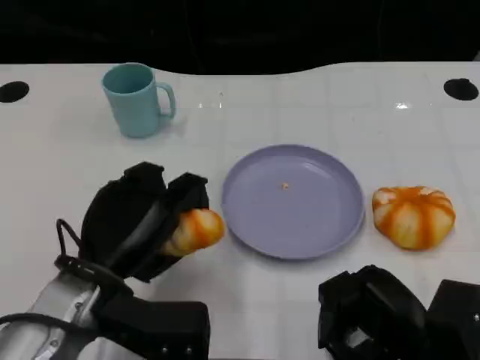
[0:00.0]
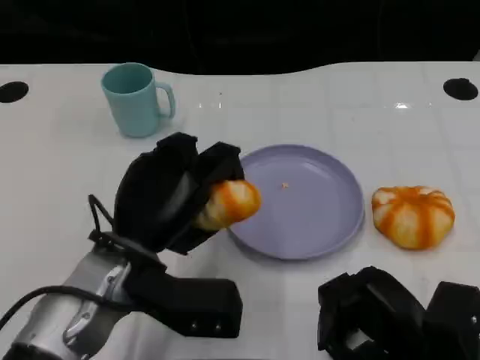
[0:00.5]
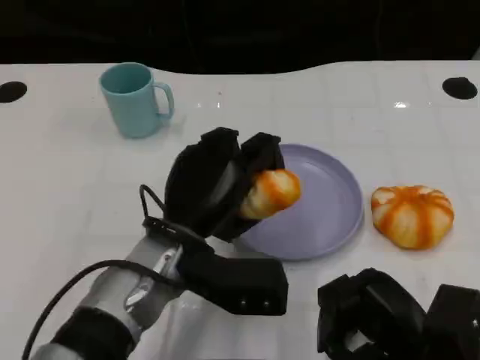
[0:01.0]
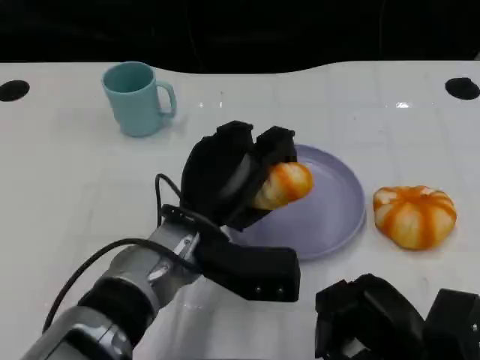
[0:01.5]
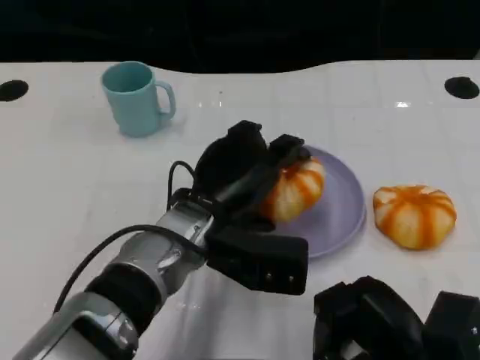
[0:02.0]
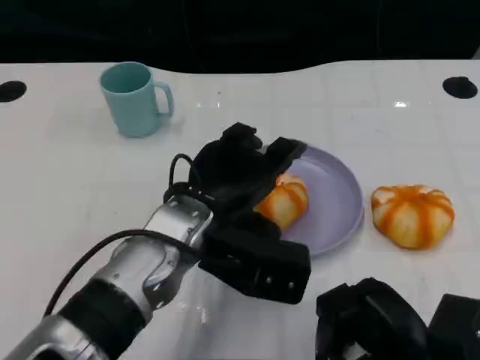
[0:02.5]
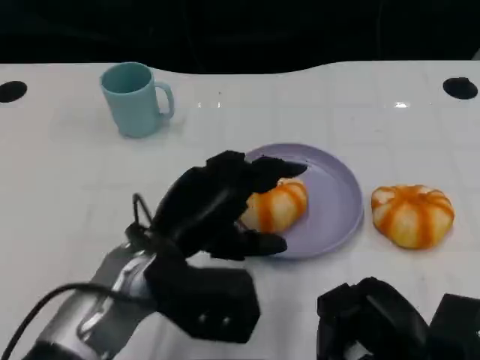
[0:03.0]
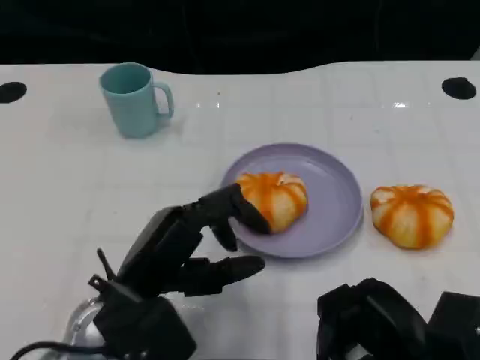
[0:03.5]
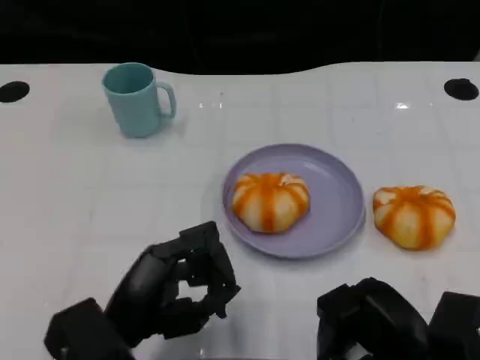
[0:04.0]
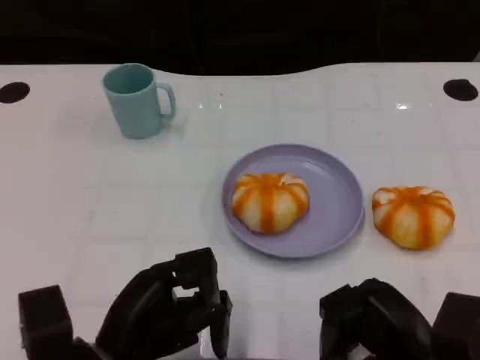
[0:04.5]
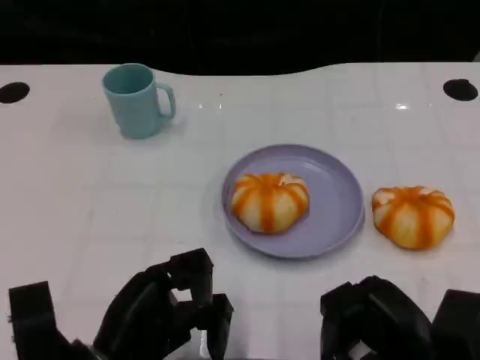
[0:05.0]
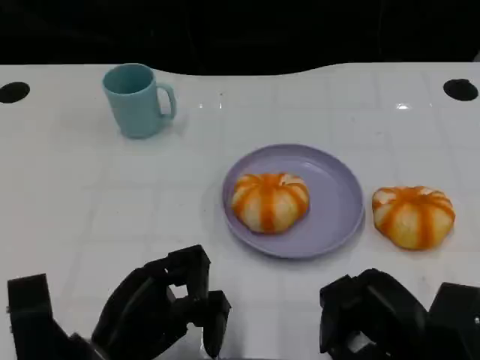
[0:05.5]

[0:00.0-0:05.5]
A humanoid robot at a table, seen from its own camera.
Task of the whole recording: Grasp the bread from the table and place it into the plate.
0:00.0 to 0:02.0: The left hand moves to the right and forward, approximately 10 cm.
0:02.0 to 0:03.5: The left hand travels to the left and backward by approximately 10 cm.
0:03.5 to 0:05.5: The left hand shifts by roughly 5 cm.

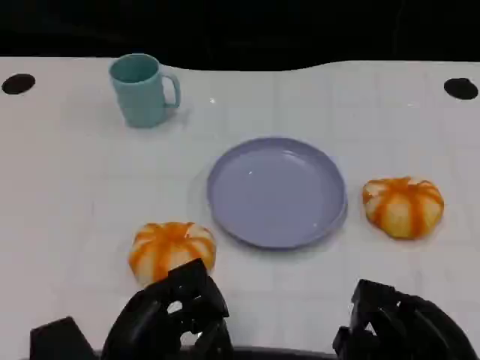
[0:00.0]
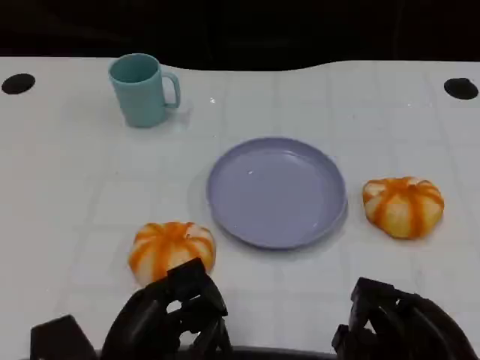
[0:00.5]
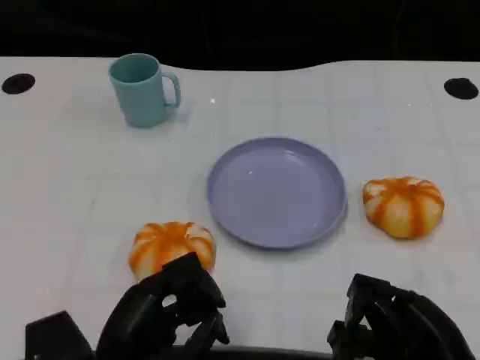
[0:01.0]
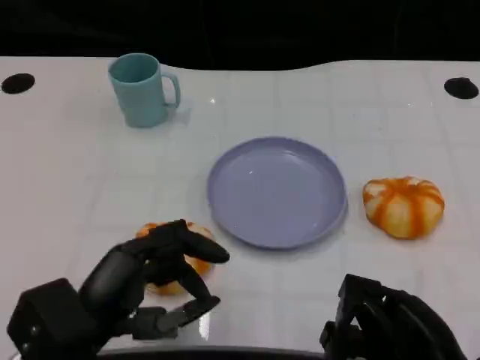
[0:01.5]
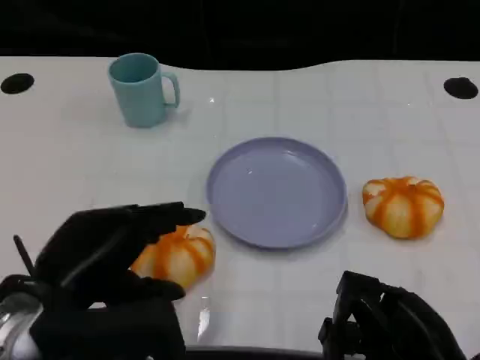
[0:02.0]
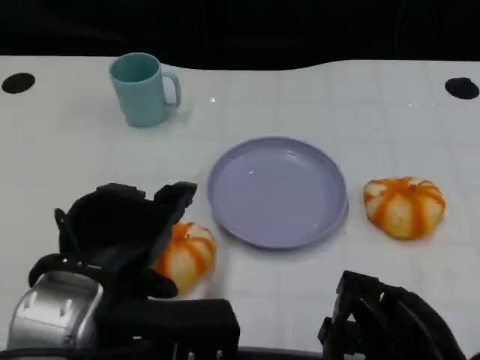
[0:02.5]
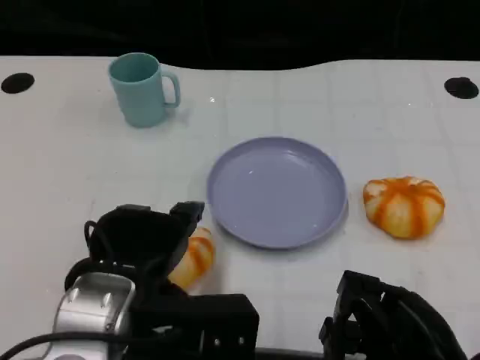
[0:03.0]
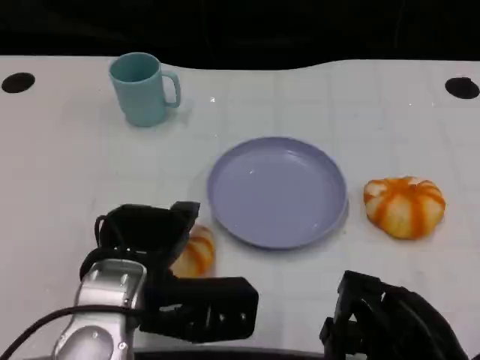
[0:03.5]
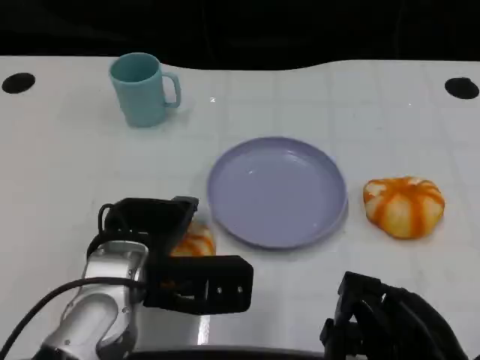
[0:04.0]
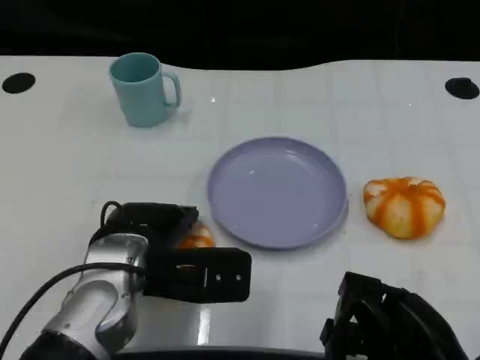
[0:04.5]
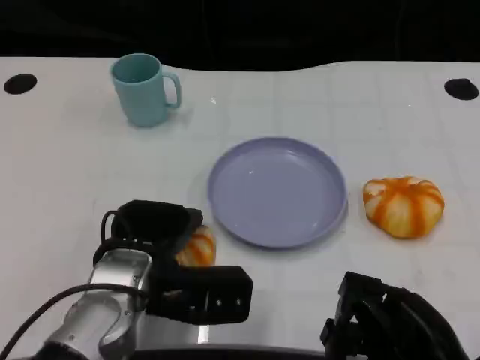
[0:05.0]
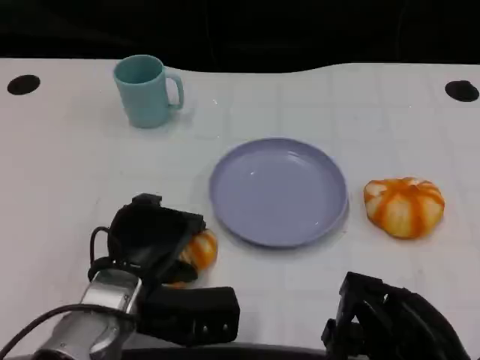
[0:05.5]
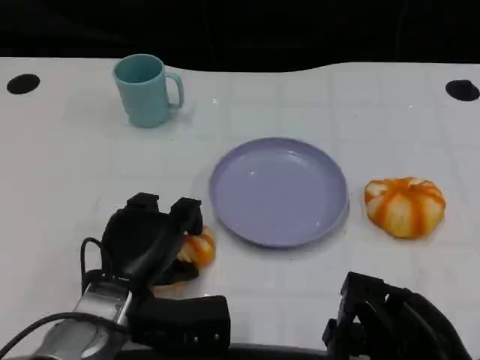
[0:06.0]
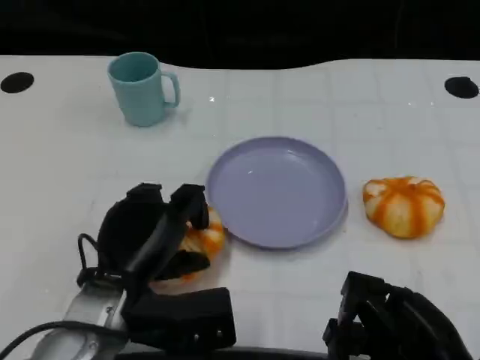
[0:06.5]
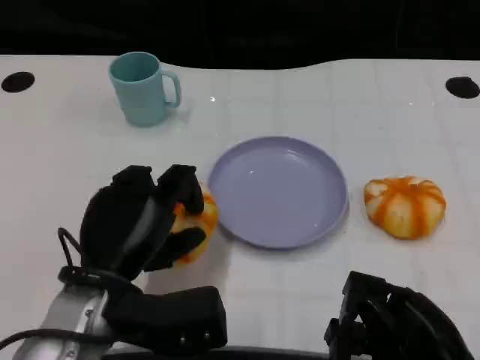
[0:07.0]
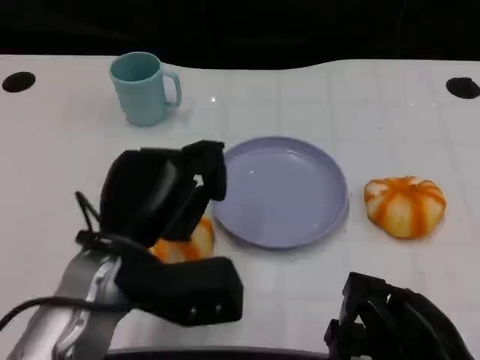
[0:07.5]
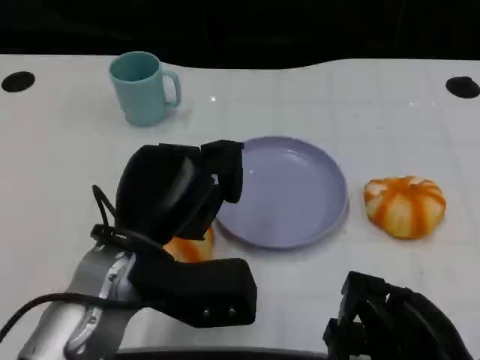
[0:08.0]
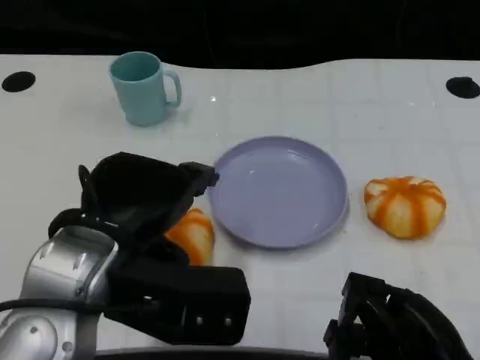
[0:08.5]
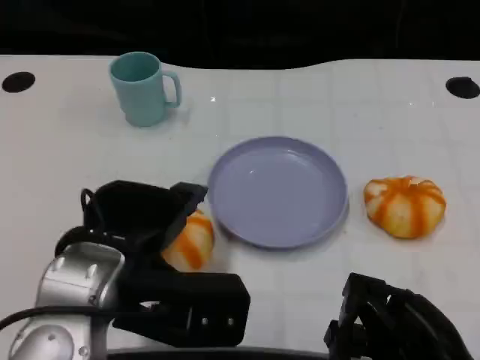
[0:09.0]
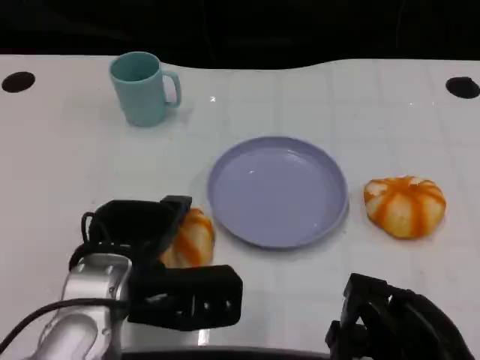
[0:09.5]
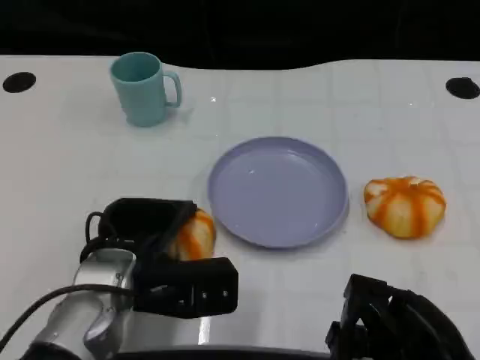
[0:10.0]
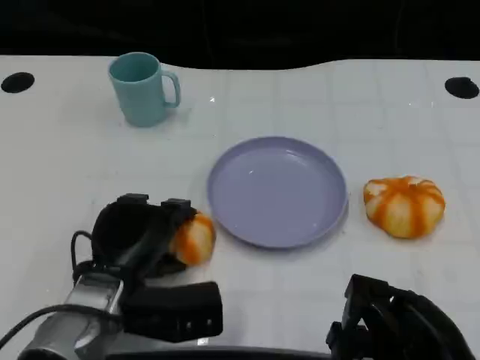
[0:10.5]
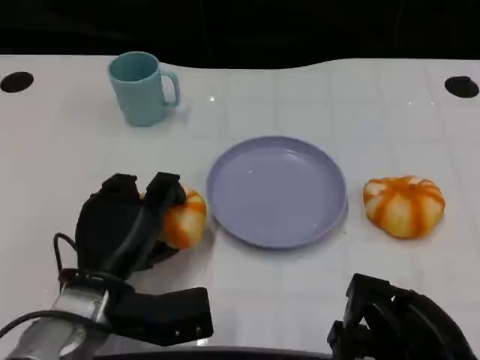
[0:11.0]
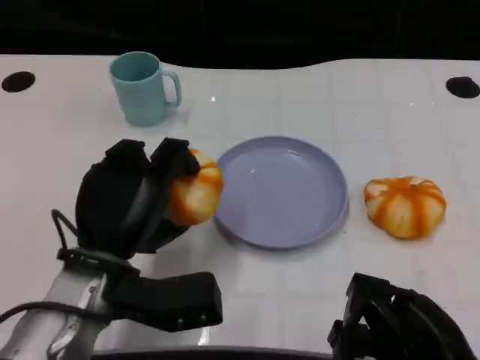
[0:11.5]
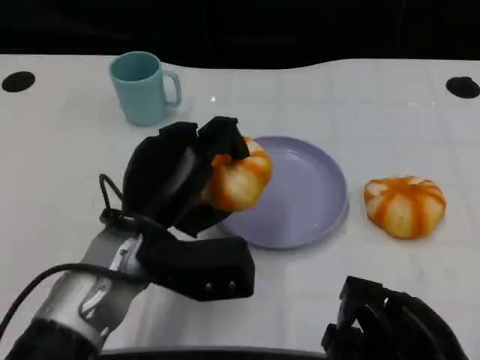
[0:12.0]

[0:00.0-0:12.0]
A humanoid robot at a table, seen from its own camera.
Task of the whole recording: Grasp the bread from the table and place it into the plate.
0:00.0 to 0:02.0: The left hand goes some 10 cm upward.
0:02.0 to 0:04.0: The left hand heads forward, to the right and downward, covering approximately 10 cm.
0:04.0 to 0:06.0: The left hand travels downward by about 5 cm.
0:06.0 to 0:08.0: The left hand shifts approximately 10 cm upward.
0:08.0 to 0:10.0: The left hand shifts approximately 5 cm downward.

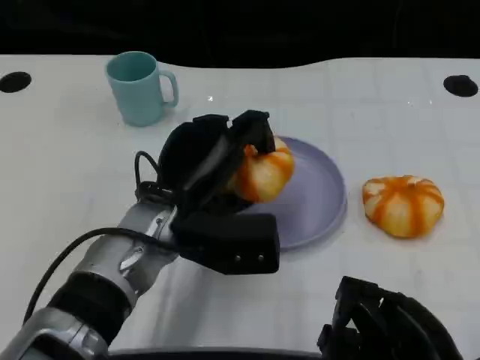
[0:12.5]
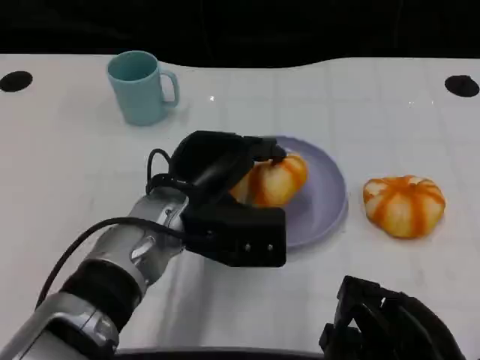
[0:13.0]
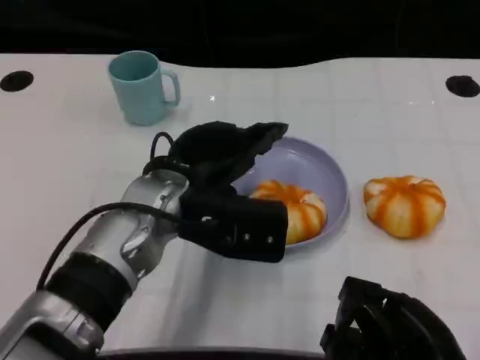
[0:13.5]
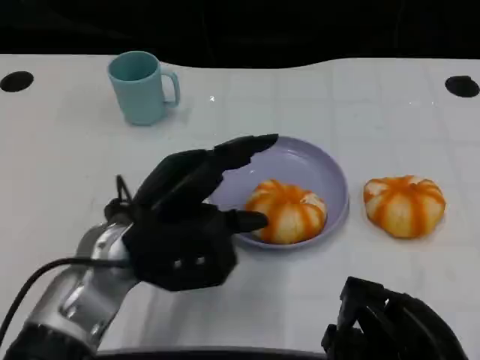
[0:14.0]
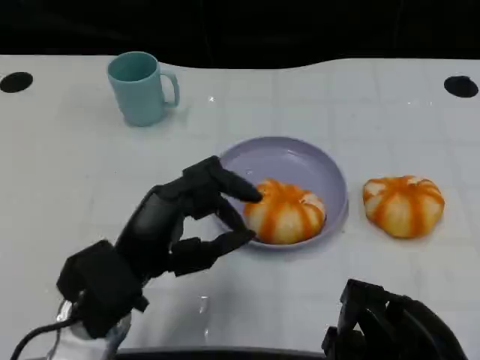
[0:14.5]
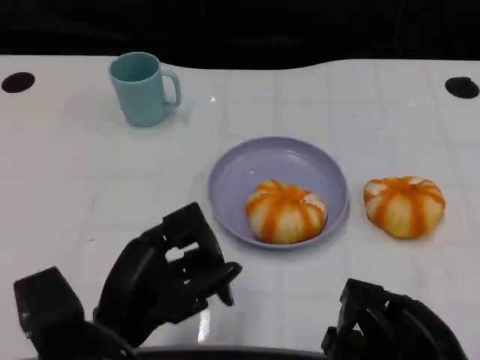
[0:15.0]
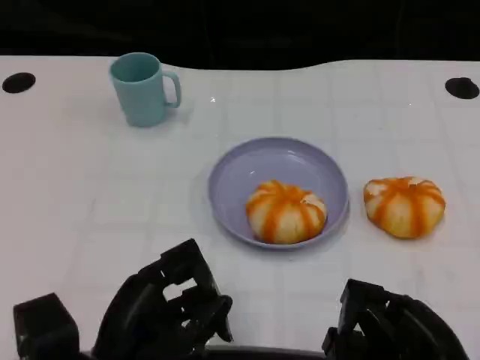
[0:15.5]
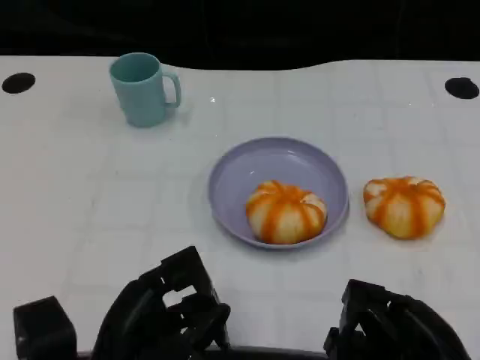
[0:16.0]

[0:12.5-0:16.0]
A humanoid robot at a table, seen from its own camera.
Task of the whole recording: Grasp the bread from the table and place it into the plate.
0:12.5 to 0:14.5: The left hand travels backward and to the left by some 10 cm.
0:14.5 to 0:16.0: The left hand shifts some 5 cm backward.

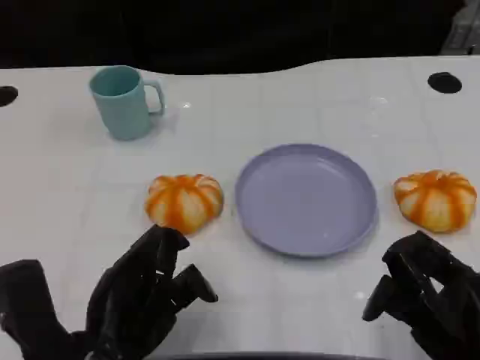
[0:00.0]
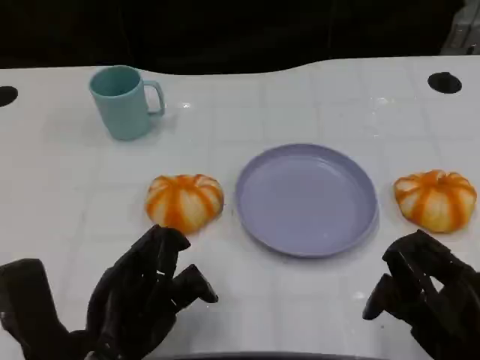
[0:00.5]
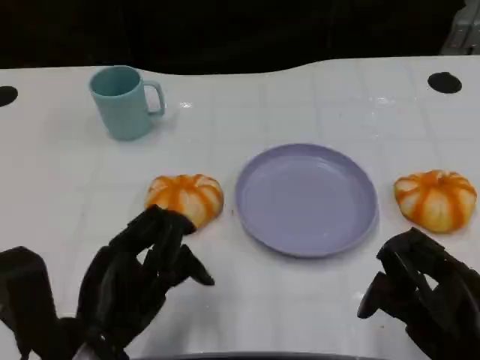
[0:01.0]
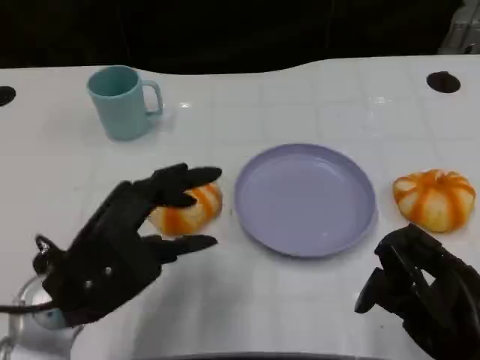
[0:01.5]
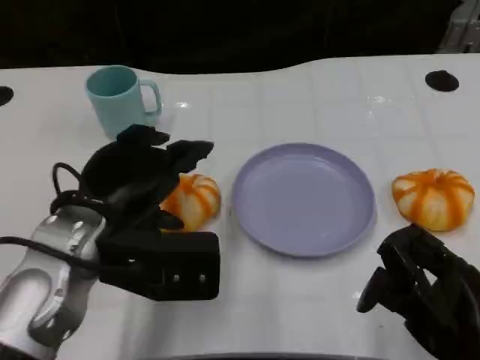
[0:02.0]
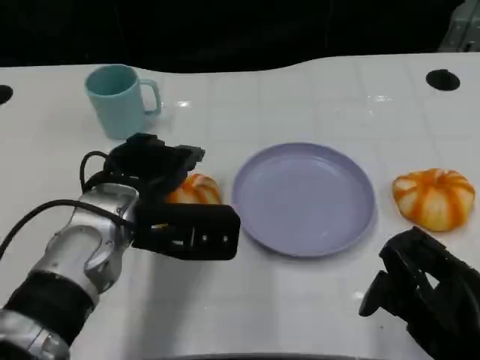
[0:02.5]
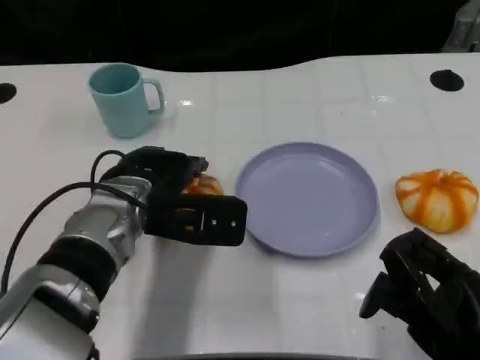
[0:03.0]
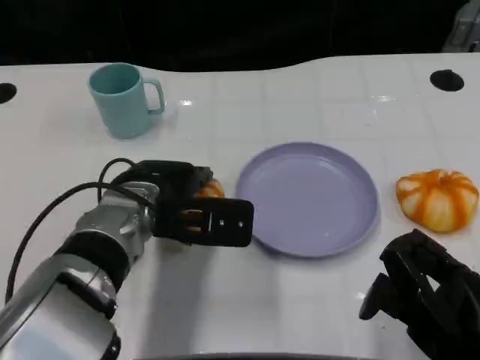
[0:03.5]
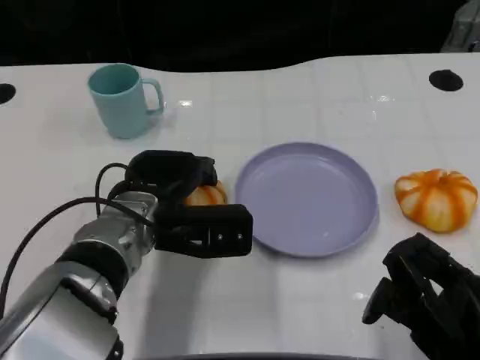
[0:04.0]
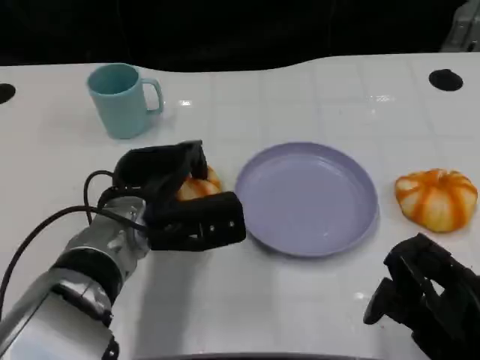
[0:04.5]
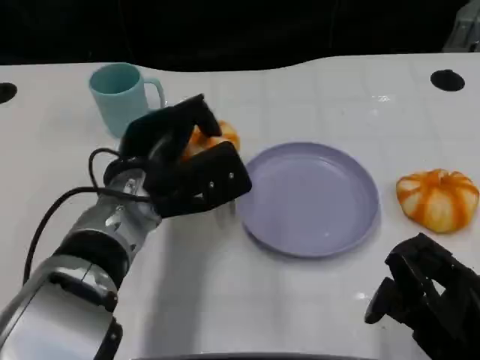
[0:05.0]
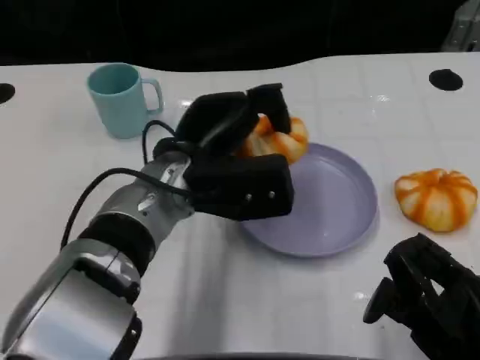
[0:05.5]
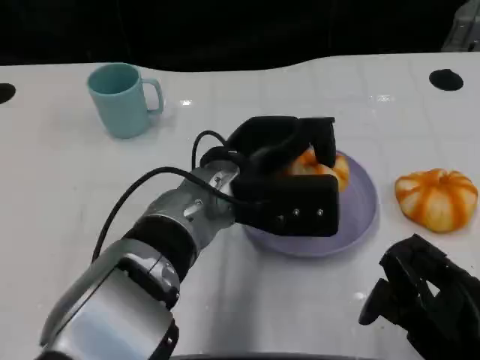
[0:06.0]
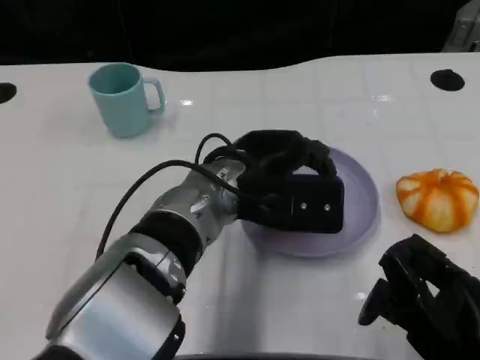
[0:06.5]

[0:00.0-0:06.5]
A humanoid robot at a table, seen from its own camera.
Task of the whole recording: Grasp the bread from the table and place it into the plate.
0:00.0 to 0:02.0: The left hand is displaced forward and upward by approximately 10 cm.
0:02.0 to 0:04.5: The left hand travels downward and forward by roughly 10 cm.
0:04.5 to 0:06.5: The left hand travels to the right by approximately 10 cm.
